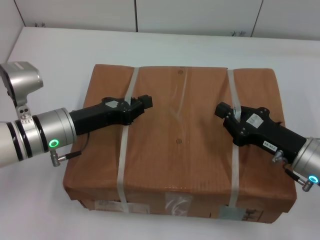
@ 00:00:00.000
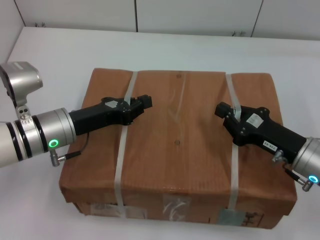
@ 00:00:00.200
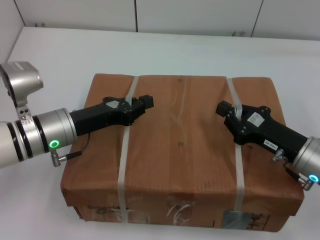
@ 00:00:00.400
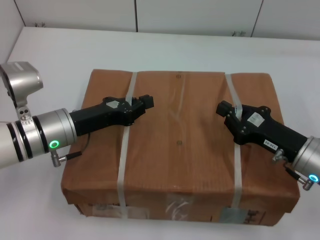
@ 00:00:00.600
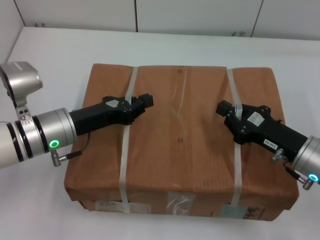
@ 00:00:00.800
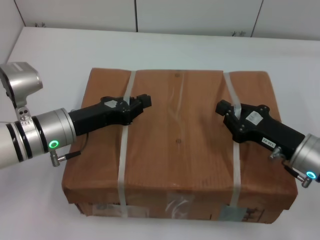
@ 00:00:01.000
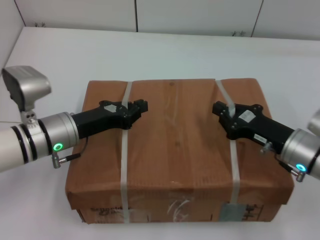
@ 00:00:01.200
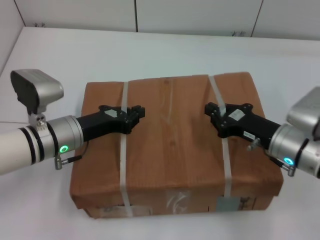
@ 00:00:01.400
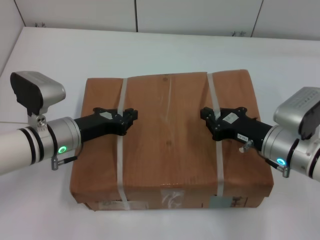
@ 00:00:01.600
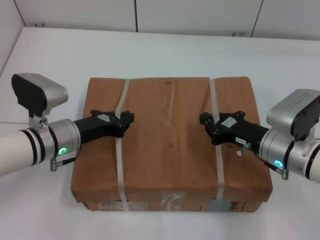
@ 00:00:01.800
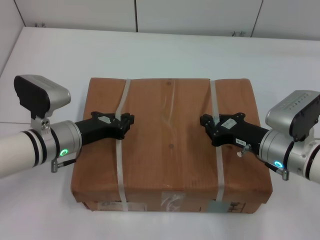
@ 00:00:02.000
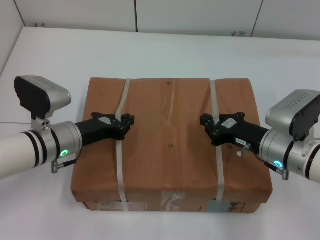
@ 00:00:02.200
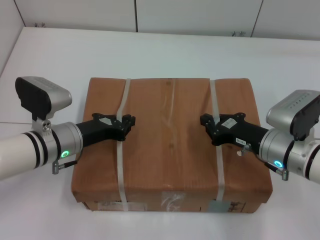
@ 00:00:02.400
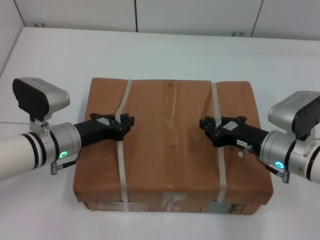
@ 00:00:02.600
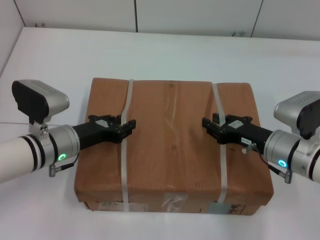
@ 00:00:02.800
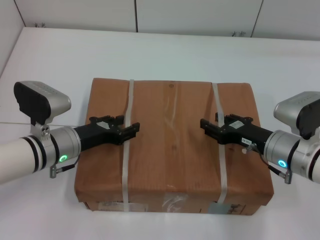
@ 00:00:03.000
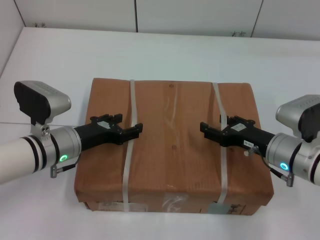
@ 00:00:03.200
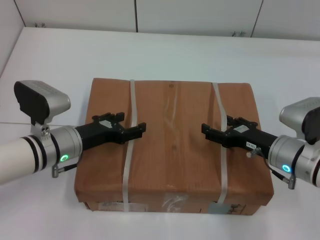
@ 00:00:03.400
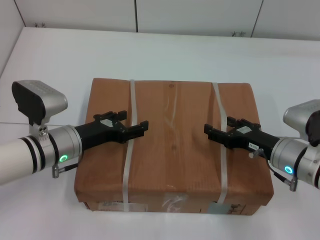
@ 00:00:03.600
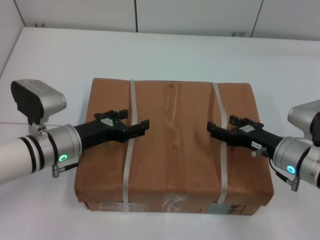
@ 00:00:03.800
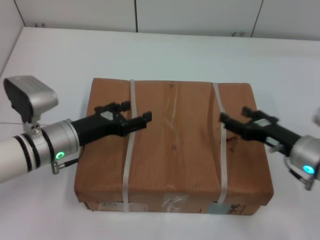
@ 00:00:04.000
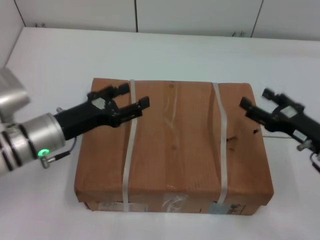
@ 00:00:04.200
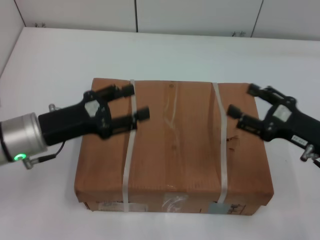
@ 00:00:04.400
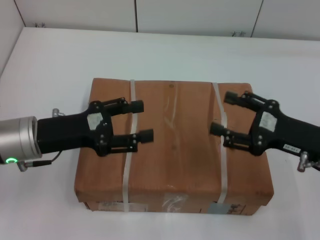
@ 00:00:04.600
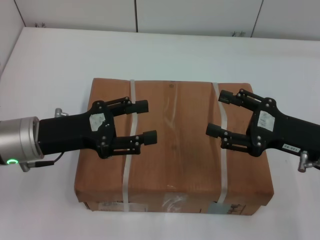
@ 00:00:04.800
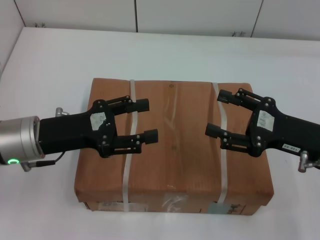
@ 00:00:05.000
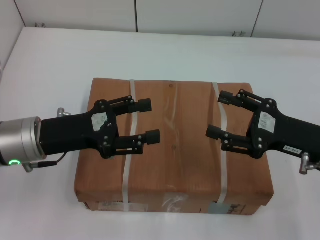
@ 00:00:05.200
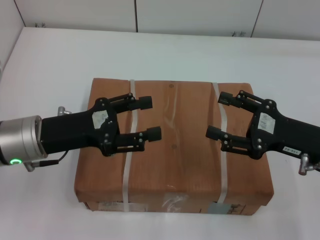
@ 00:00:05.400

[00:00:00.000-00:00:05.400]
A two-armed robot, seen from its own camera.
Task of the whole recording: place the box on the table with both arms.
Step, 00:00:00.000 to 00:00:01.800: Place the box on the table with left gripper.
Step, 00:00:00.000 to 00:00:01.800: Place the box on the table with right gripper.
Step, 00:00:02.000 to 00:00:03.000: Loosen the box on the table with left gripper.
Step, 00:00:02.000 to 00:00:03.000: Loosen the box on the table with right gripper.
00:00:01.400 to 00:00:02.800: The grippers stay close to where they were, moving slightly.
00:00:02.800 to 00:00:04.000: The right gripper opens. Meanwhile the left gripper opens up.
00:00:04.000 to 00:00:05.400: The grippers both shift upward by roughly 5 cm.
